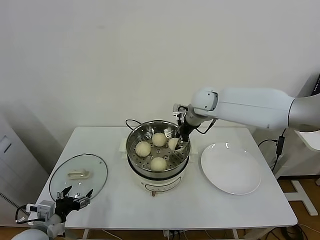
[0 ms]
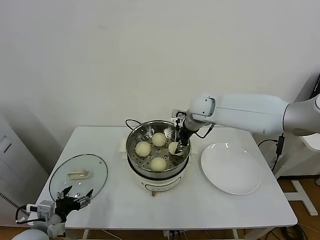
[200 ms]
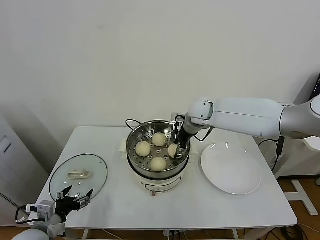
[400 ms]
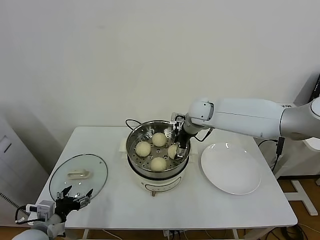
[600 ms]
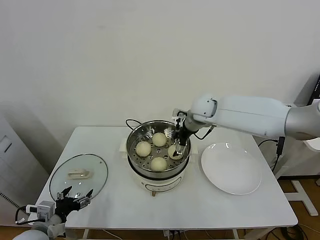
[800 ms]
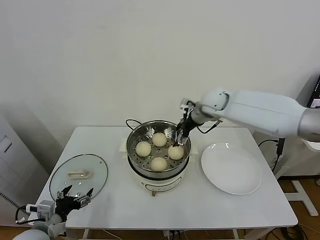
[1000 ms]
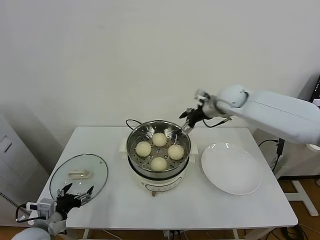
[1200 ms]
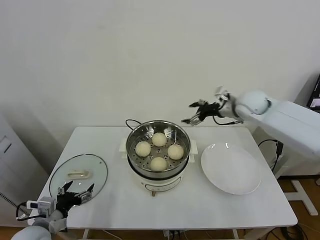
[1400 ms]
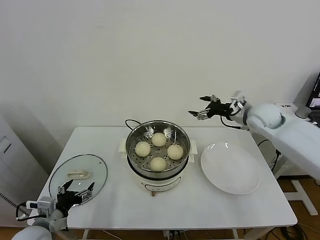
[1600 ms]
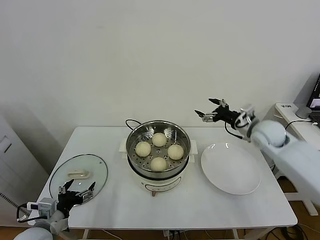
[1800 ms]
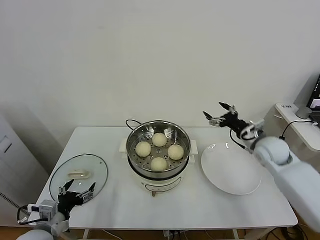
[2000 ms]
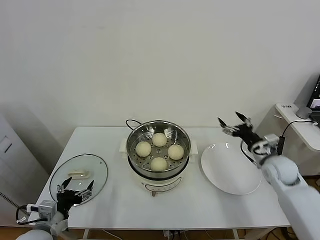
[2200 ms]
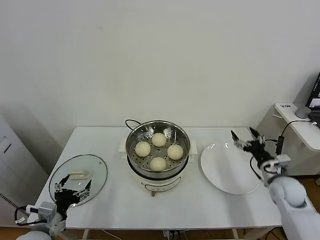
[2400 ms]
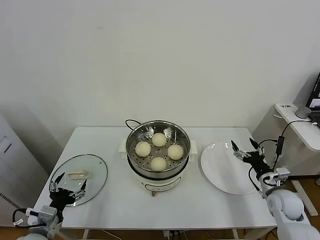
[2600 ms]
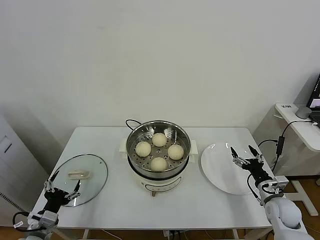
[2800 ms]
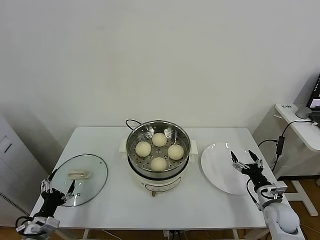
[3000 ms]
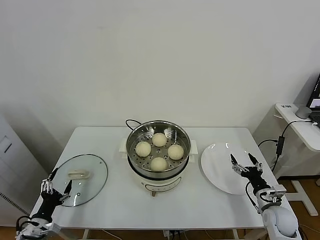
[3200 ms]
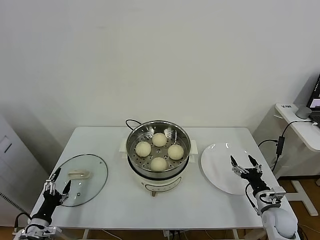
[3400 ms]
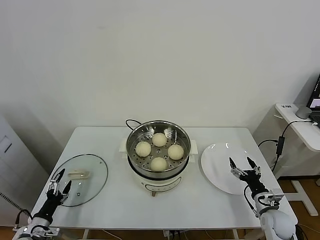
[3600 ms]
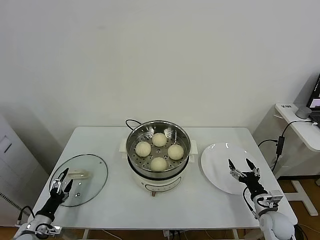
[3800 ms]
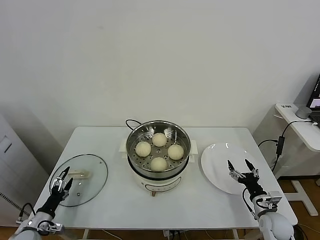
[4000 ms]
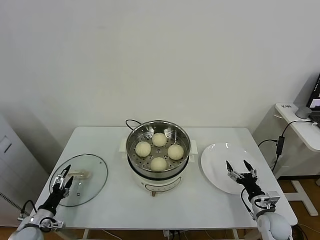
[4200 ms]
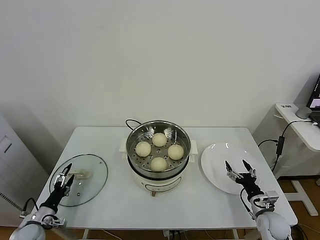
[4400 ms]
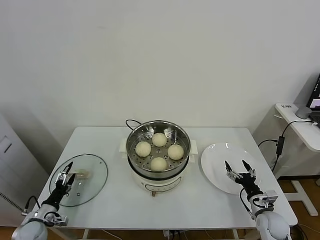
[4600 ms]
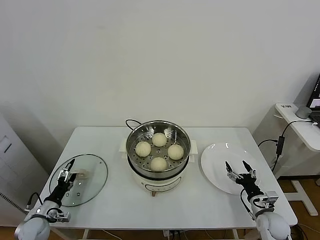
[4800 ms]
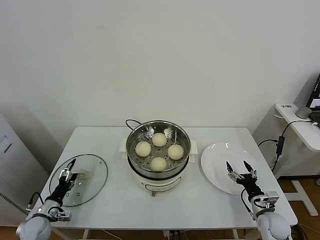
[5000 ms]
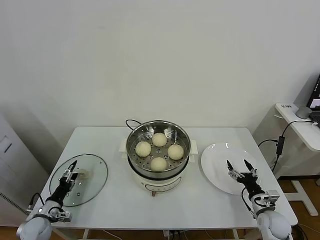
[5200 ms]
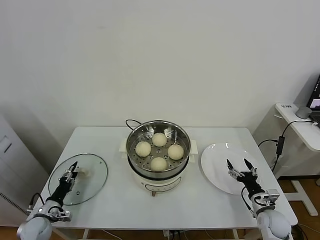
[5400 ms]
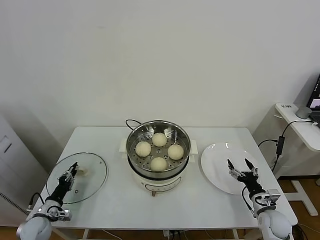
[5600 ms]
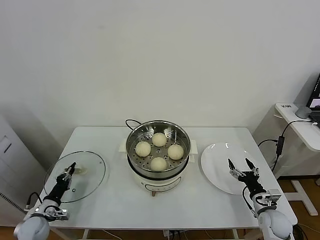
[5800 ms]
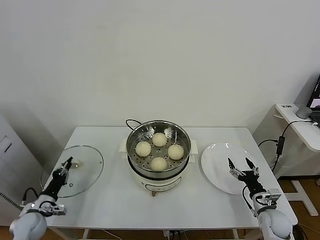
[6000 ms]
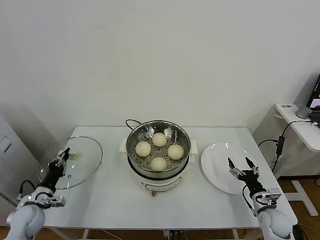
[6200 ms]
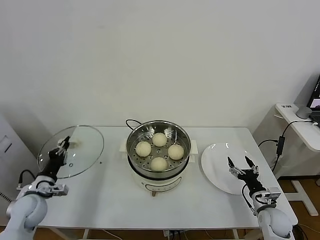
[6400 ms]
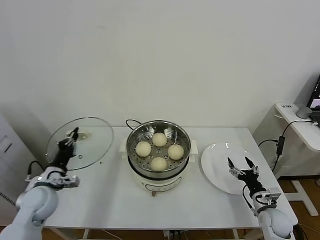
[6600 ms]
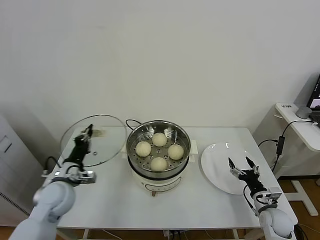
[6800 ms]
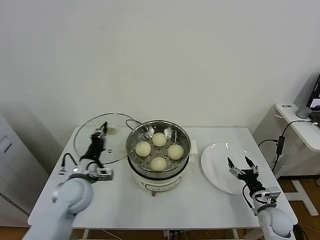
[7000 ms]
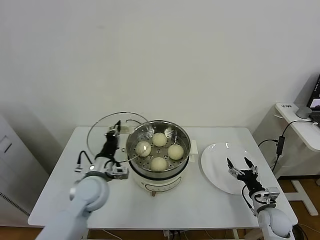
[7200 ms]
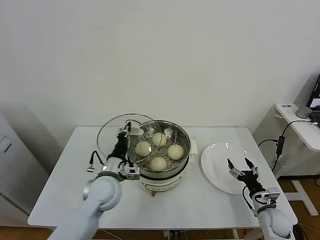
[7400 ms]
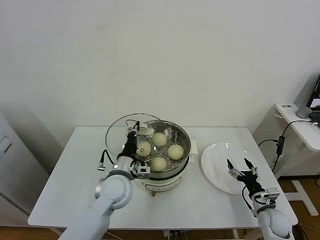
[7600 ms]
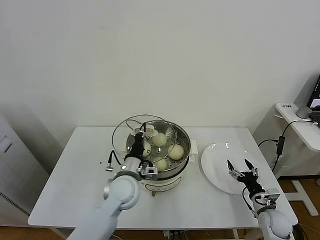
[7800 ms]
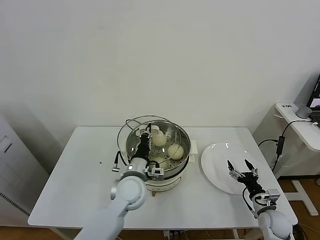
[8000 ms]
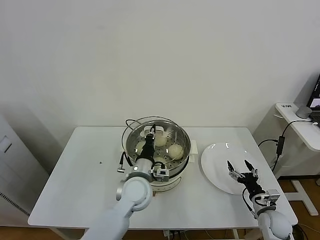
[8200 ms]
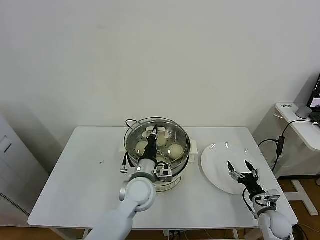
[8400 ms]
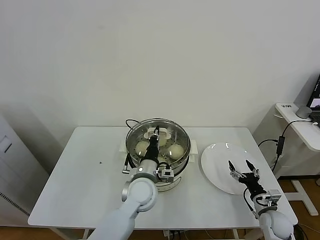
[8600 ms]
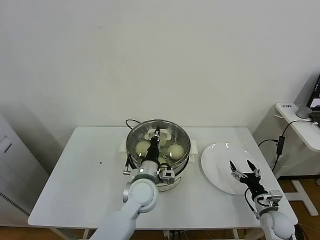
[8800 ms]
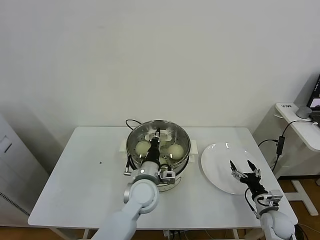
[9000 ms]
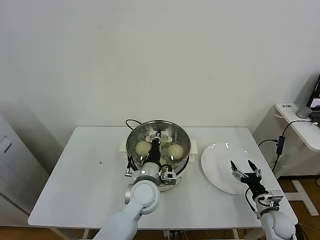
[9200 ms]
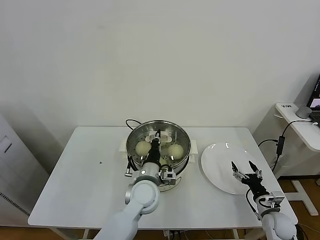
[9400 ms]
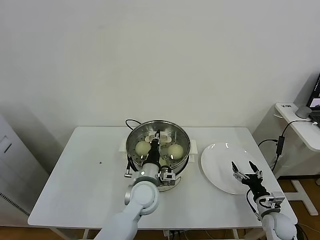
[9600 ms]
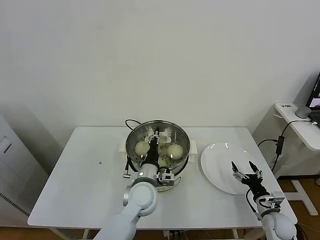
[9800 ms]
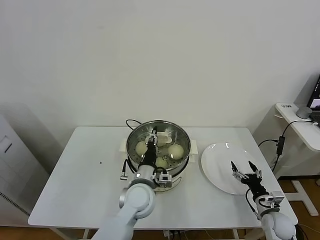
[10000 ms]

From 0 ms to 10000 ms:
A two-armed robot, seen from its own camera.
Task of the whole recording: take steamed baozi put them in steamer.
Step, from 1000 ms to 5800 ms: Grasp the pot lid with left gripper.
From 0 ms to 1400 ms: The right gripper is displaced to the right by about 15 cm, and opens its fingers.
From 1400 ms to 2800 ms: The left gripper changes place by some 5 cm. Meanwhile the right gripper travels downward and backward by some 35 cm.
From 2800 ms to 4200 ms: The left gripper is displaced downward, to the left and forward by approximately 15 cm, while the right gripper goes approximately 5 cm downward.
From 4200 ms to 5800 ms: The left gripper closes its fingers.
From 5800 ms to 7200 ms: The left gripper moves to the right and upward, some 30 cm.
From 7200 ms to 8600 ms: The left gripper shifts some 15 cm to the right.
From 8600 ms to 10000 ms: The left gripper opens.

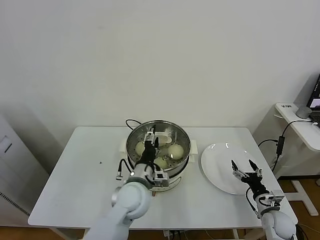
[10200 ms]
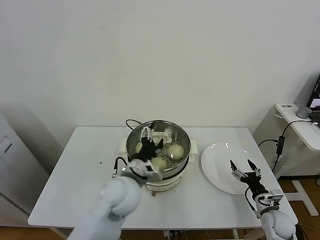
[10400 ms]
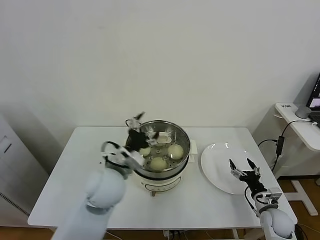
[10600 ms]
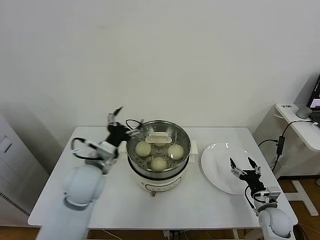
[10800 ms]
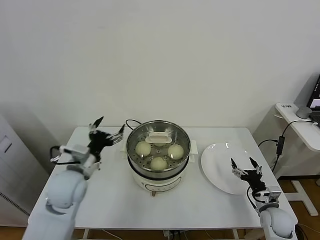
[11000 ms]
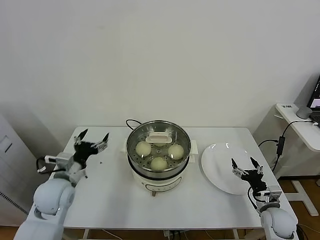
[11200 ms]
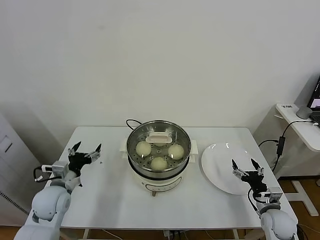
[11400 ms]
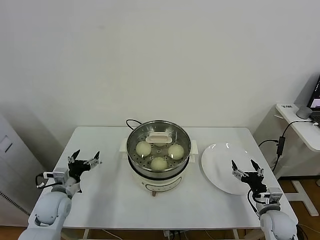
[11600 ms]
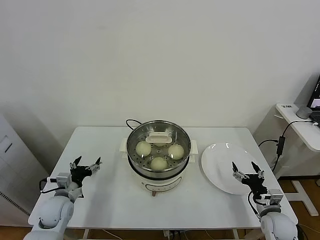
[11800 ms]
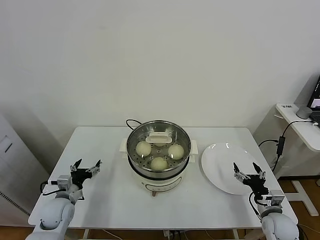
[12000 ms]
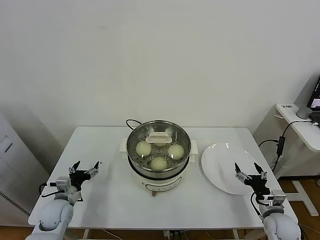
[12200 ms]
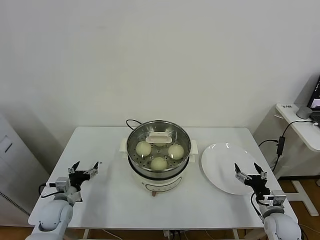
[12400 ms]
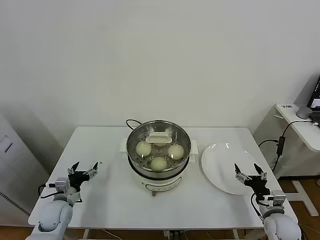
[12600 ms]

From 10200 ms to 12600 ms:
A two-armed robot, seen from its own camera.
Task of the whole recording: take steamed baozi put them in steamer.
From 10200 ms to 11400 ms: The left gripper moves to the left, some 25 cm.
From 11400 ms to 12600 ms: The left gripper shifts approximately 10 cm downward.

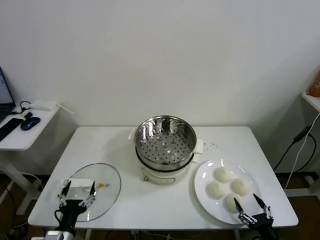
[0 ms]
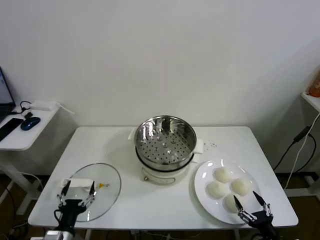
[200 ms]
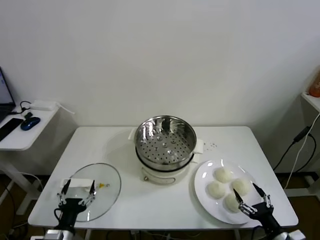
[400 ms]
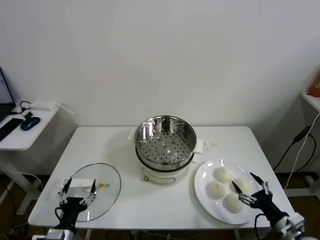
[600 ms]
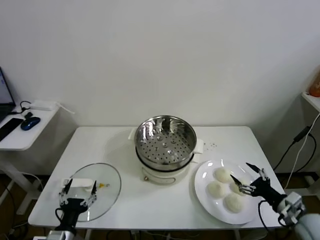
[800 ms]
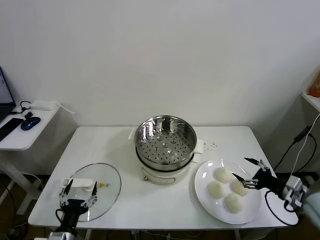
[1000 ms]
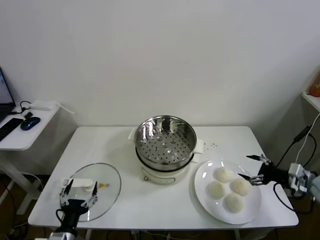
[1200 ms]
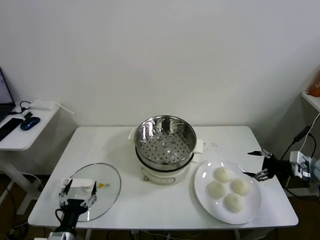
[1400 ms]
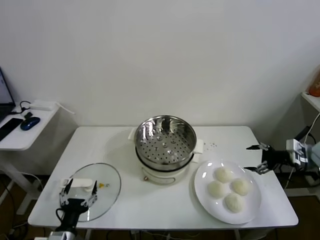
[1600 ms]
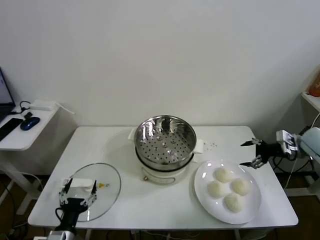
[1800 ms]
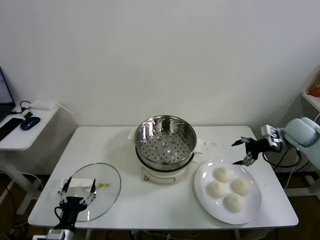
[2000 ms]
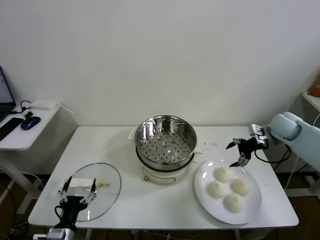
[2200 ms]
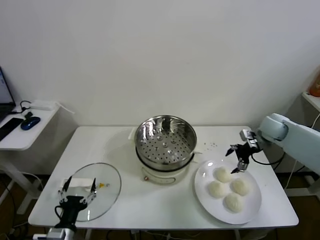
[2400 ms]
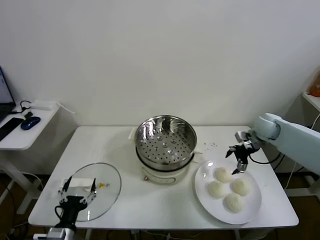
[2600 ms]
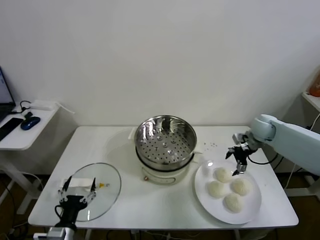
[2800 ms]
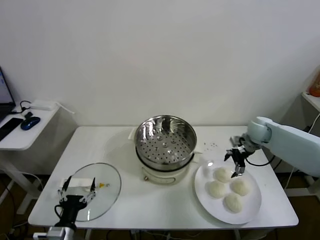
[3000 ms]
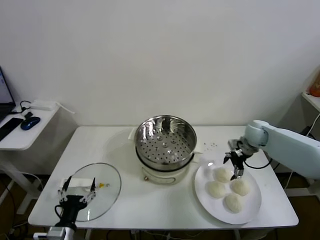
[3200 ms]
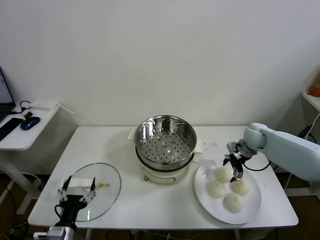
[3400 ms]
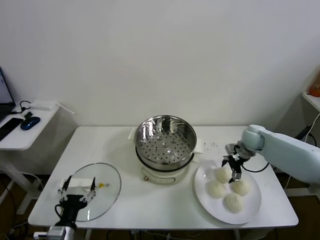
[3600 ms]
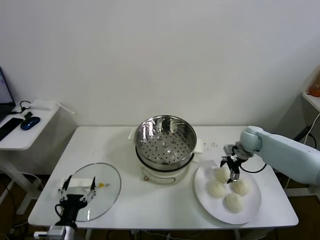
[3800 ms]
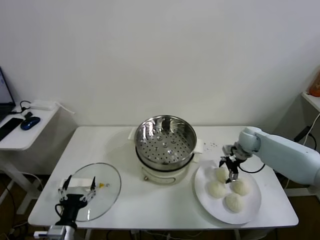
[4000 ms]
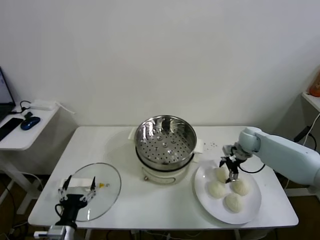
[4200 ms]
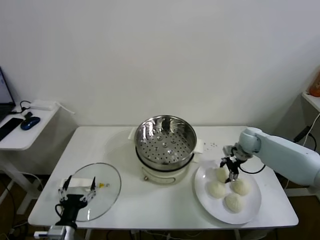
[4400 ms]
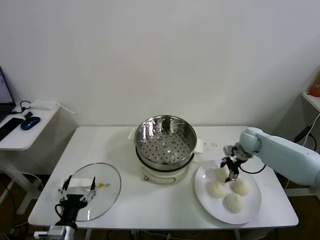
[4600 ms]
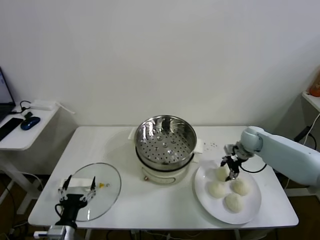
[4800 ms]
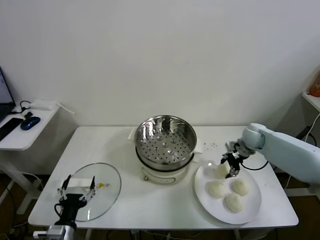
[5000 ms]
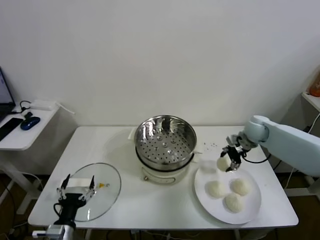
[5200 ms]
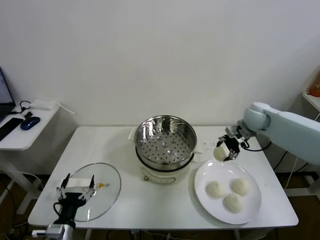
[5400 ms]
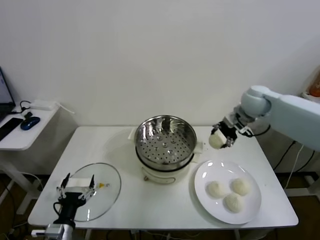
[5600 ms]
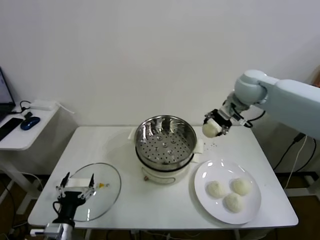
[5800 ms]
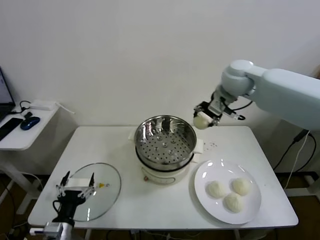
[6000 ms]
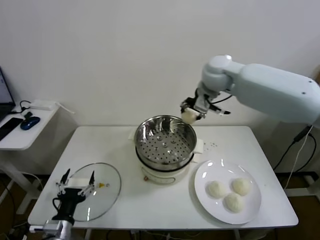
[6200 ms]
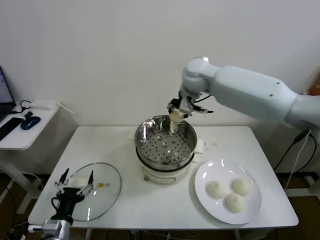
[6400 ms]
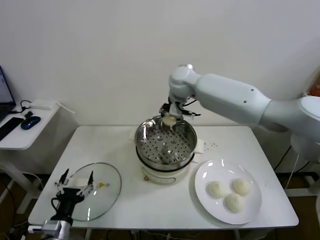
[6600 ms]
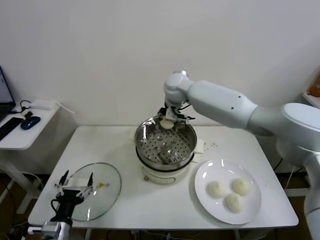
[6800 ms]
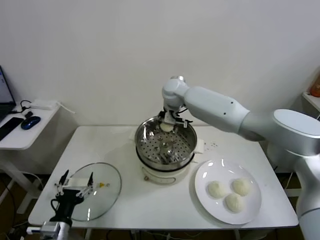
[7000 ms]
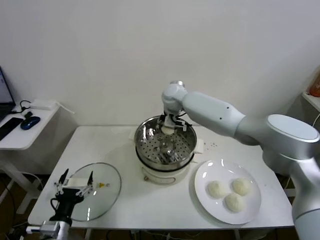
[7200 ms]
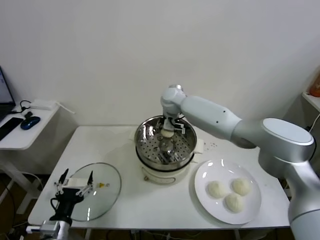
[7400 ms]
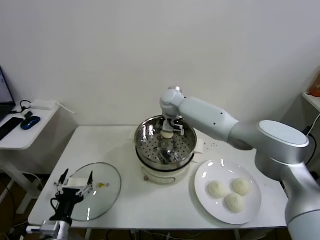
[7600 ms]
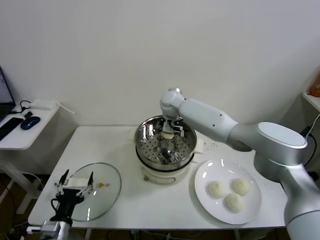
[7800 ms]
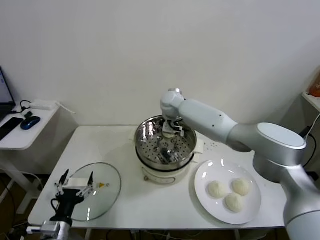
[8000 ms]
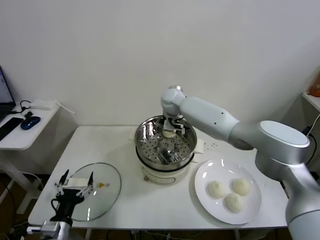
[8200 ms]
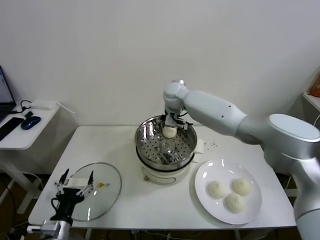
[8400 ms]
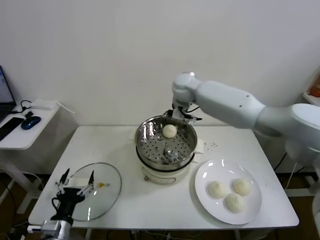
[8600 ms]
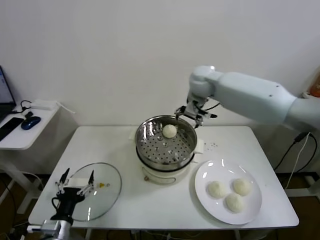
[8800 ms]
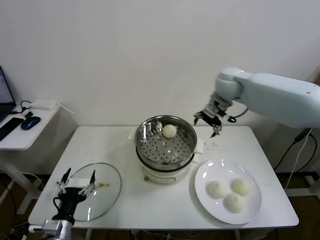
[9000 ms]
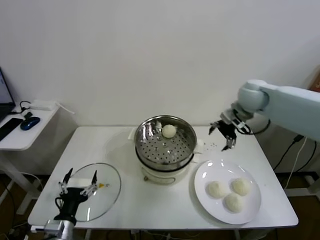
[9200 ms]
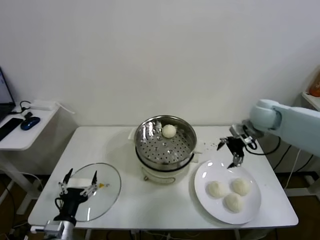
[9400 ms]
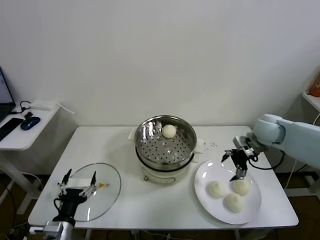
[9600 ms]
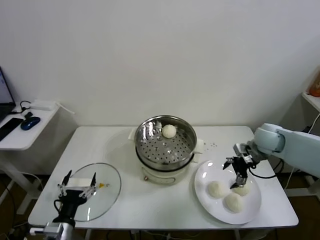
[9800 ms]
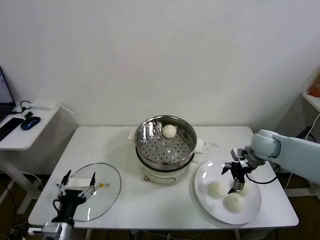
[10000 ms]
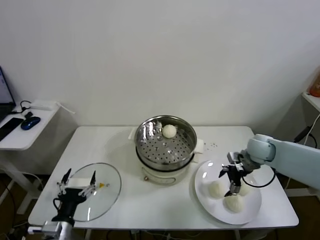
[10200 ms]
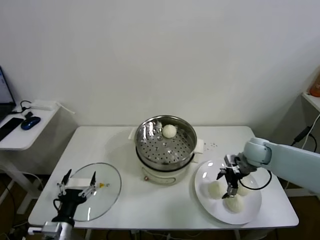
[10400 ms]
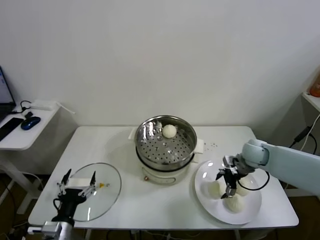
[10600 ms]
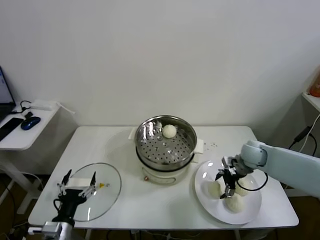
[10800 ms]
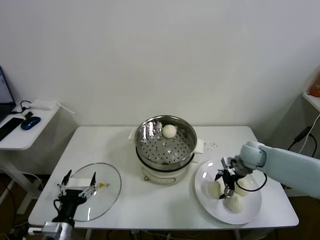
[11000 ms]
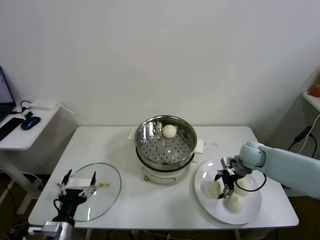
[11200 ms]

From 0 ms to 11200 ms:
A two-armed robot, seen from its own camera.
Task of the whole recording: take steamed baozi put them in steamer.
Step, from 0 ms to 4400 ms: Grasp the baozi in the plate with right gripper.
Step, from 4600 ms to 8000 ms: Place the baozi on the steamer with right gripper.
From 1600 ms to 3200 ms: The right gripper shifts approximately 20 cm forward, to the left and downward.
From 3200 ms to 4800 ms: The right gripper closes.
From 4800 ms to 6400 ms: The right gripper shifts some 35 cm upward and to the left.
From 6400 ms to 8000 ms: The right gripper heads downward and to the left, covering approximately 15 cm, and opens its fingers.
From 8000 ms to 9600 ms: The right gripper moves to the right, about 30 cm.
From 9600 ms to 11200 ms: The right gripper heads downward, covering roughly 15 cm.
